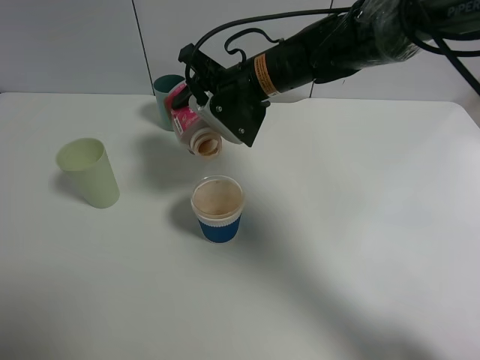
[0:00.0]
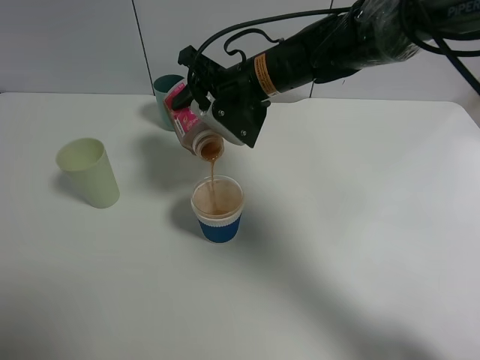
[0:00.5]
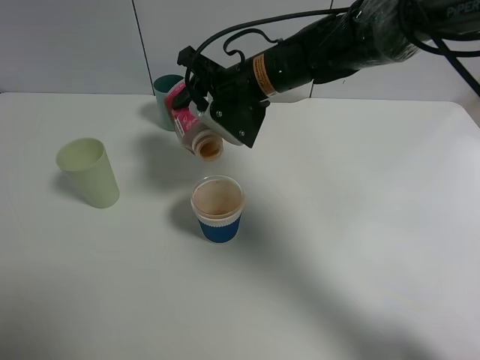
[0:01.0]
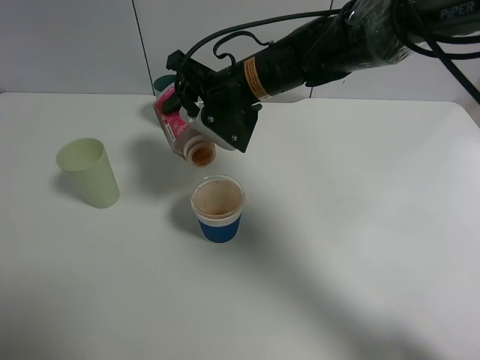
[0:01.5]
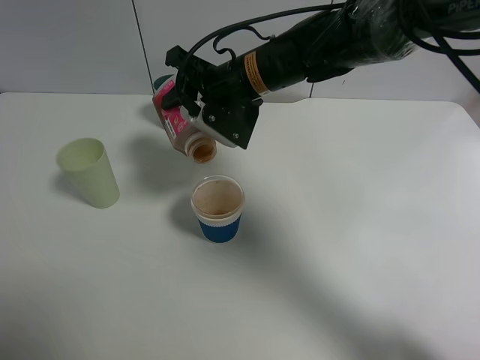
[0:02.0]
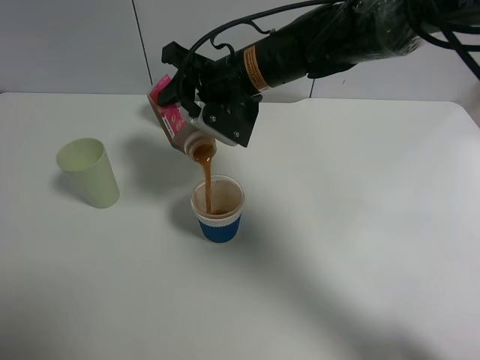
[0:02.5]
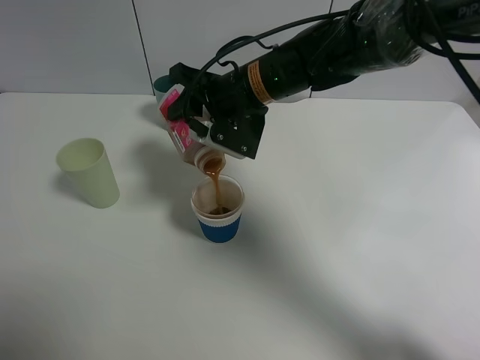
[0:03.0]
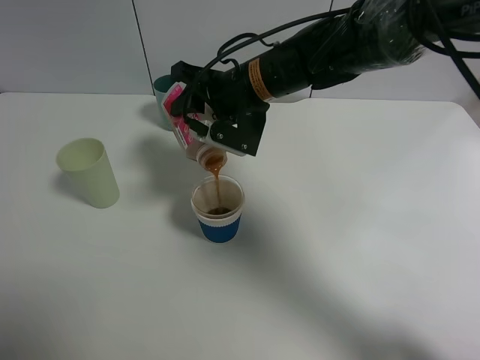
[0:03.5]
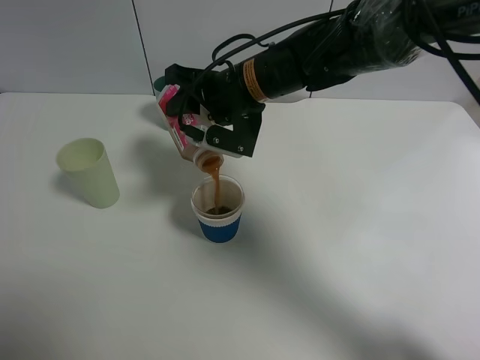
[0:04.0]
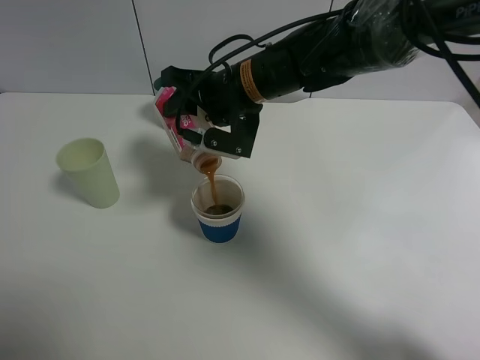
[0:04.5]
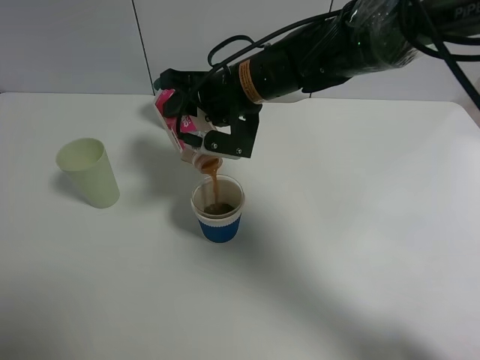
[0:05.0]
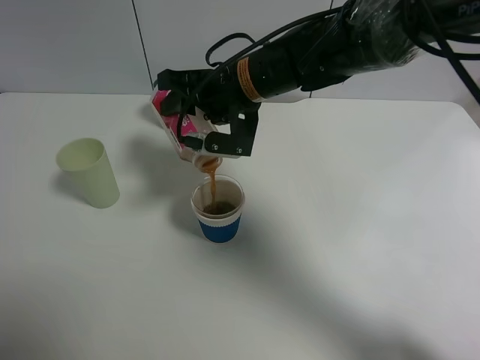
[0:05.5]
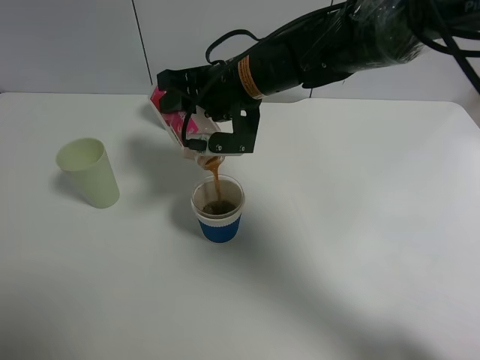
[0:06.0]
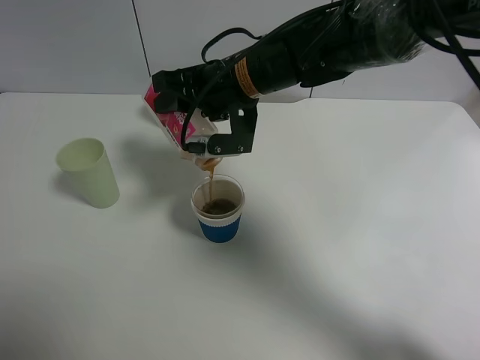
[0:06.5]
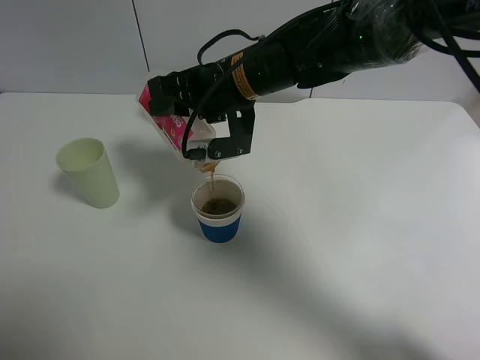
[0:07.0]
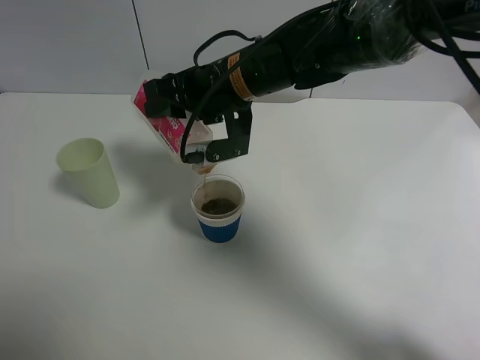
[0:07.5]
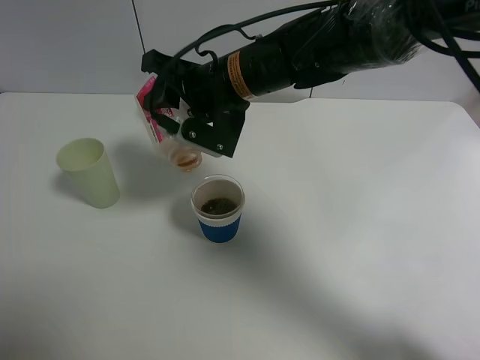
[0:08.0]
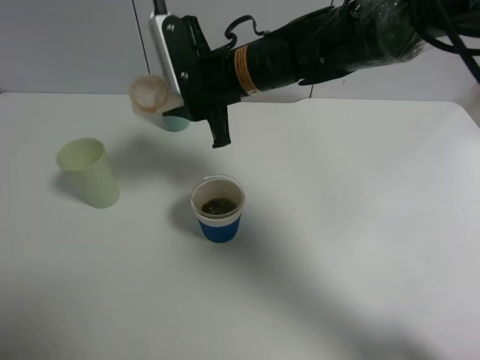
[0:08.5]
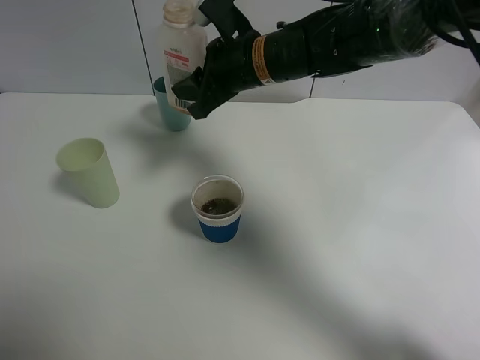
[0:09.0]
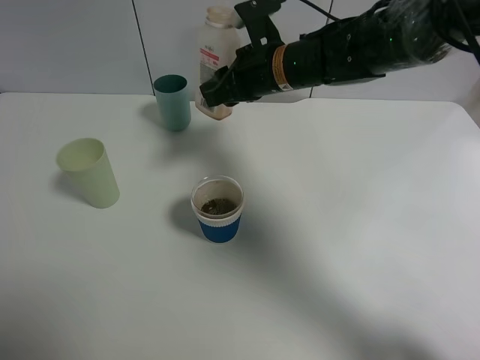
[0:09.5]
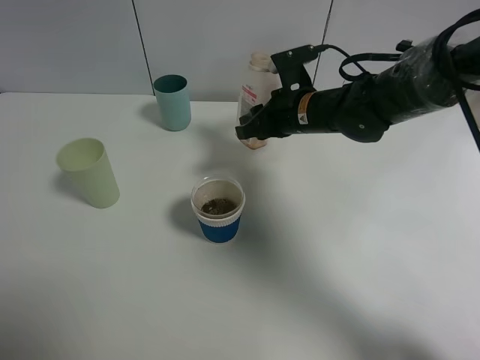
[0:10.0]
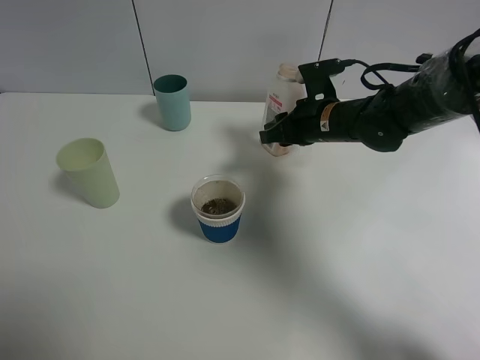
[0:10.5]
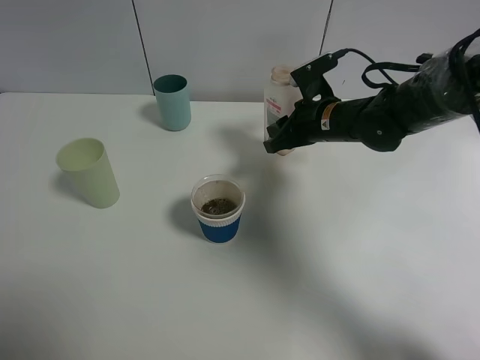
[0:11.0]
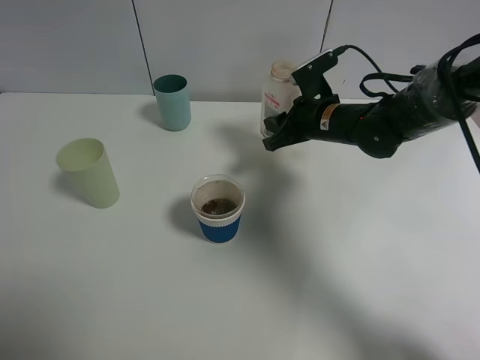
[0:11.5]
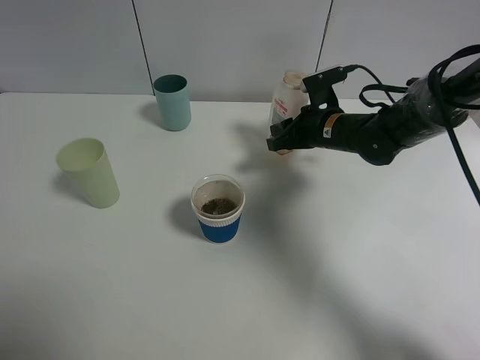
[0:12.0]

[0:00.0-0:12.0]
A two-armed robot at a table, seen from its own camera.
Task of the whole recording: use a gripper to hold the bottle of the drink and pour it into a random cup.
Step, 0:00.0 to 0:08.0: Pour the cranberry juice into the paper cup with the right gripper.
0:00.0 to 0:04.0: The grippers make only small movements.
0:04.0 to 0:08.0: The grippers make only small movements.
0:08.0 to 0:10.0: The right gripper travels to the right and downward by about 15 cm.
0:10.0 to 0:12.0: The right gripper ends up some 5 cm from where it was.

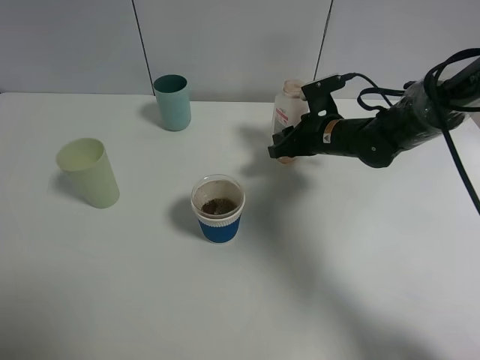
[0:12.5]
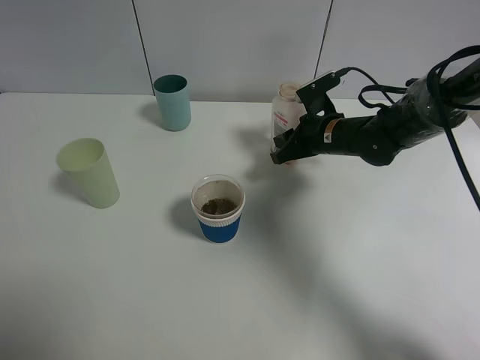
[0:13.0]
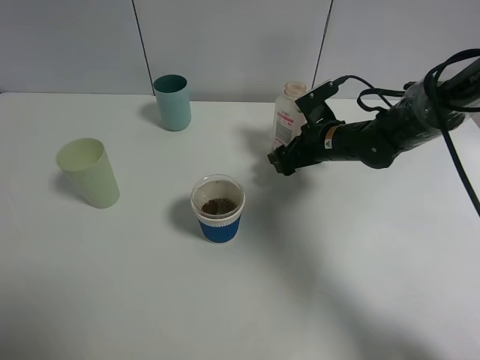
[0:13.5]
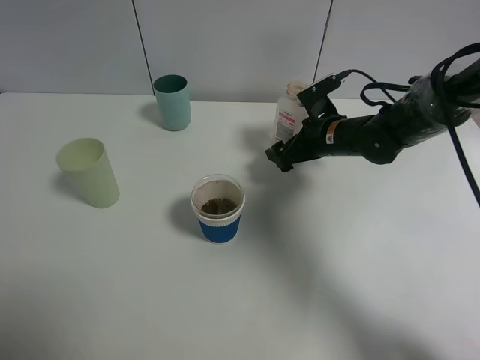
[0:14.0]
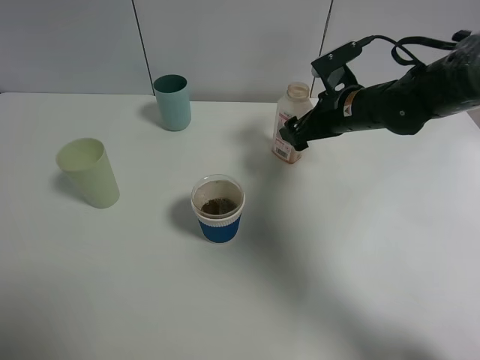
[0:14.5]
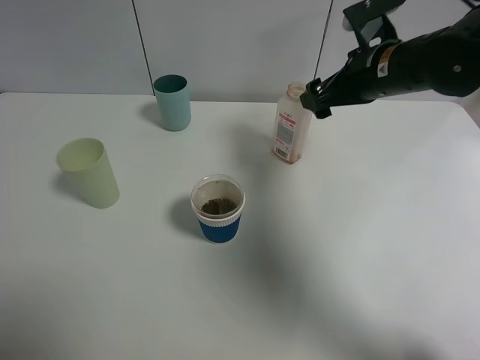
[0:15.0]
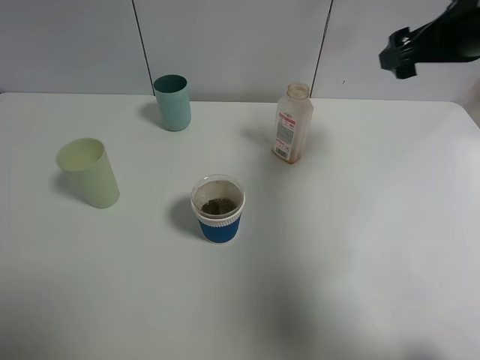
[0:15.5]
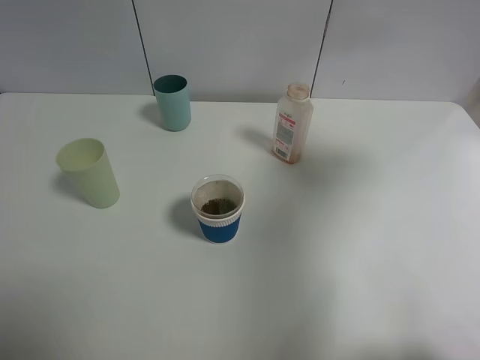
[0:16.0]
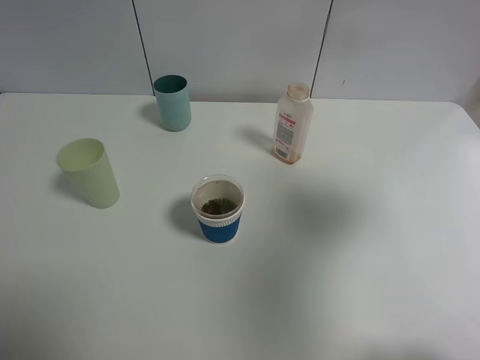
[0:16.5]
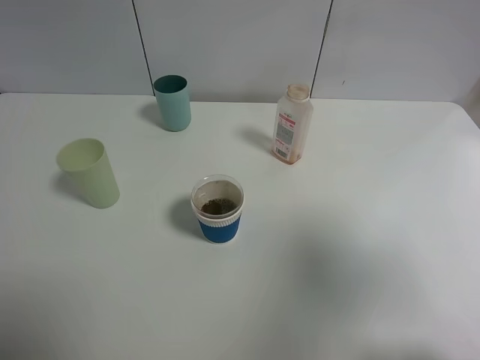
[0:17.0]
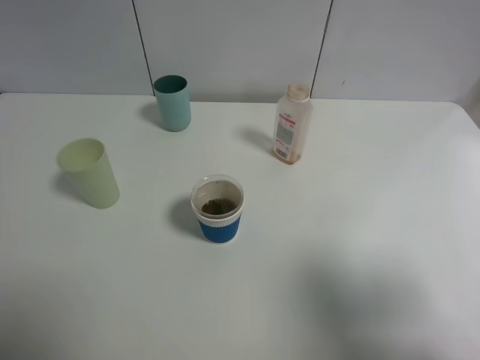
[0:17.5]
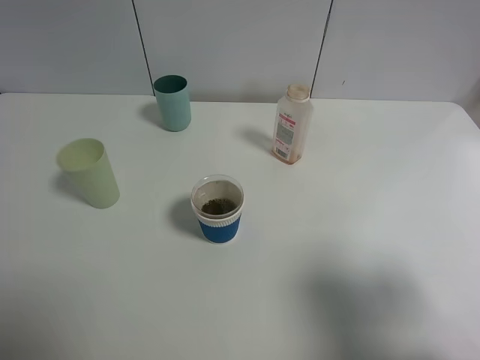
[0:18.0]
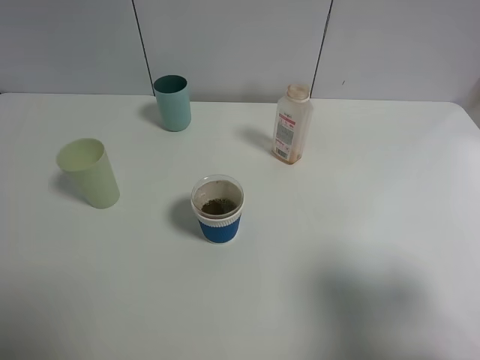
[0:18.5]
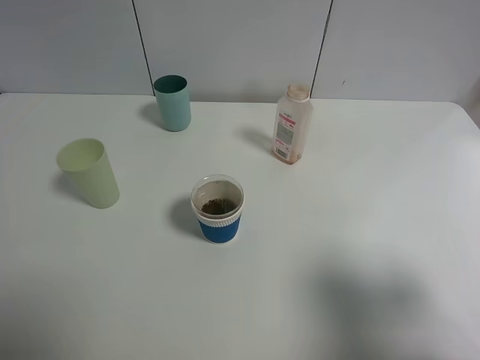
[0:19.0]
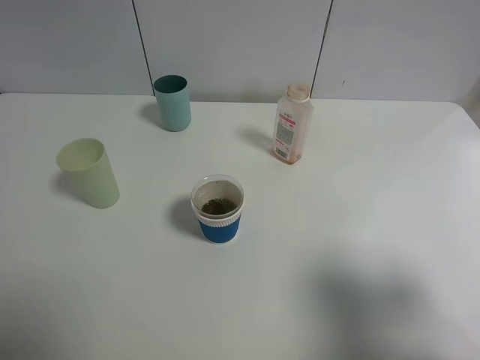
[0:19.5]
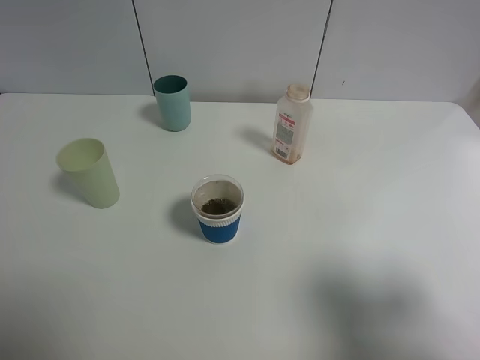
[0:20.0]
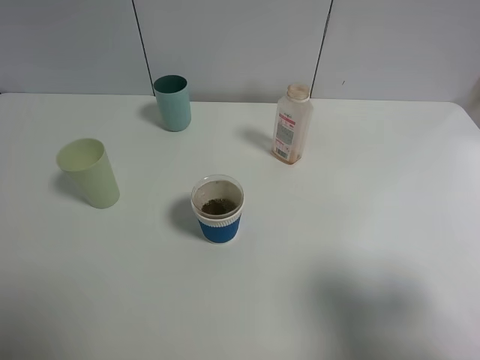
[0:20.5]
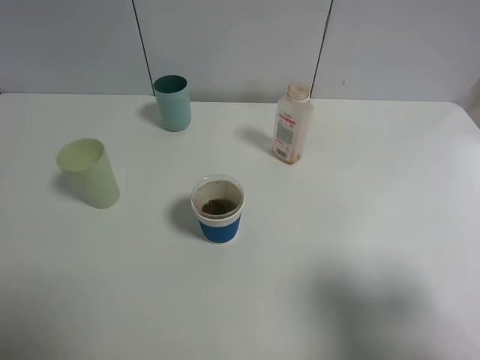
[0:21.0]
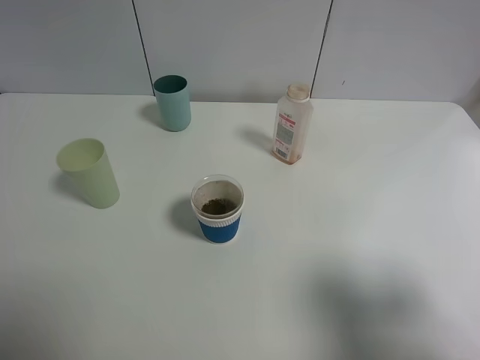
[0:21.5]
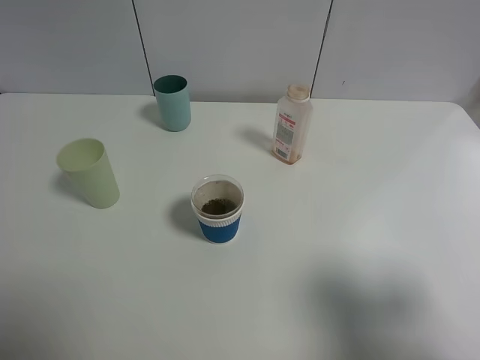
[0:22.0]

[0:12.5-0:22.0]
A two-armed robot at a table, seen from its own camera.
Task of the whole recording: use a gripper to hold the bottle of the drink and pour it into a random cup.
0:12.5 to 0:14.5: The right gripper goes about 5 cm upward, and opens.
0:14.5 to 0:16.5: The right gripper is displaced backward, upward and to the right by approximately 40 cm.
0:16.5 to 0:18.0: The right gripper moves downward and backward, some 15 cm.
0:20.0 to 0:22.0: Both grippers stay put.
